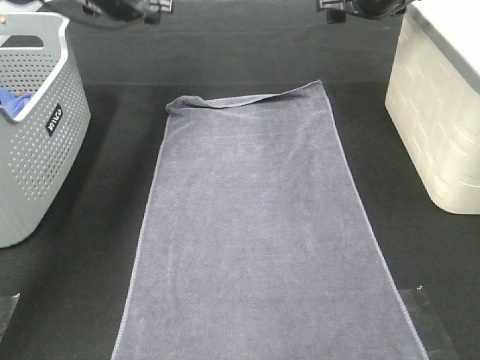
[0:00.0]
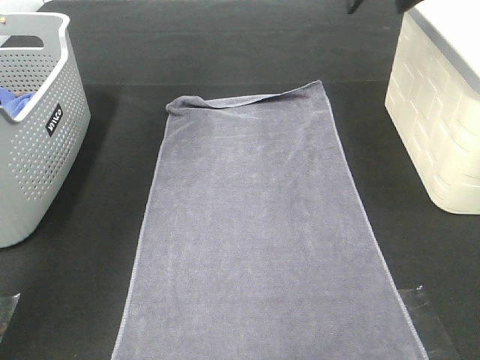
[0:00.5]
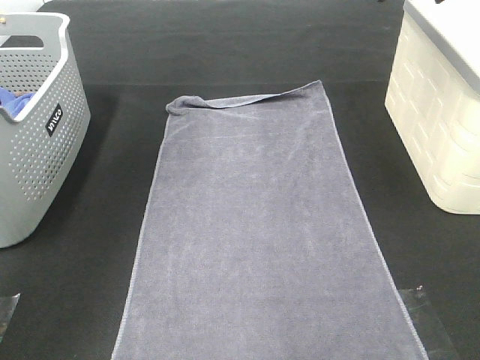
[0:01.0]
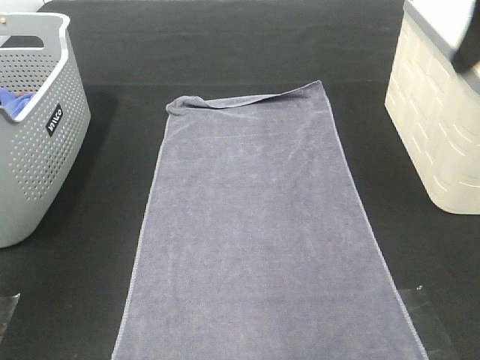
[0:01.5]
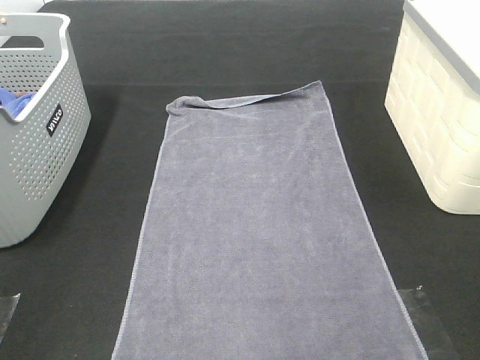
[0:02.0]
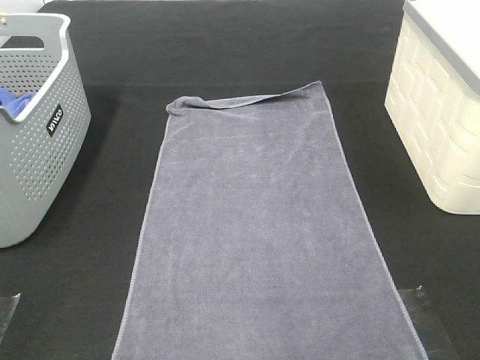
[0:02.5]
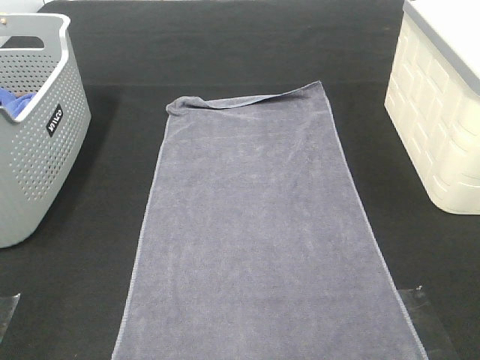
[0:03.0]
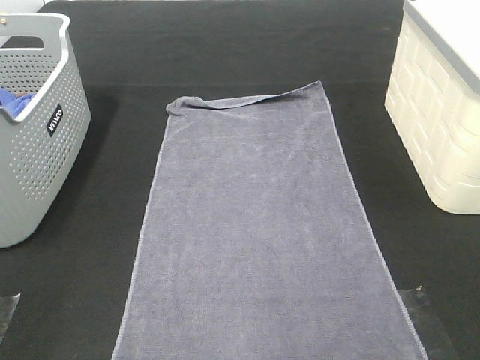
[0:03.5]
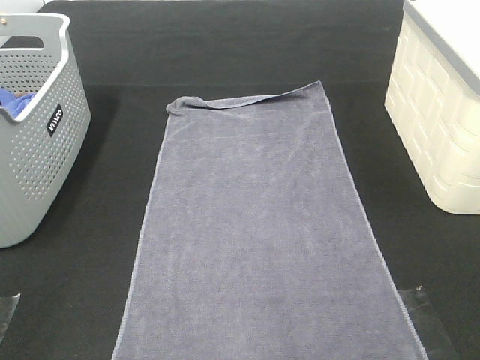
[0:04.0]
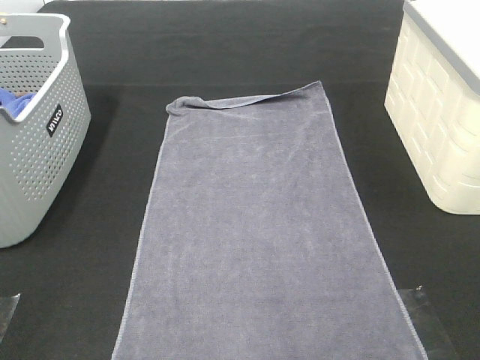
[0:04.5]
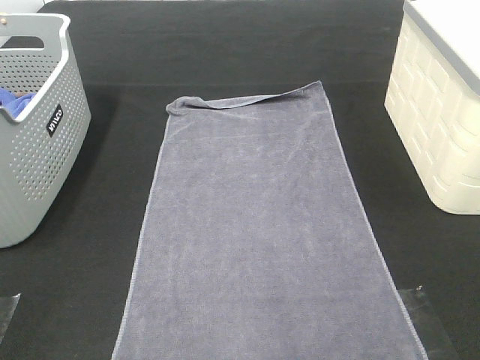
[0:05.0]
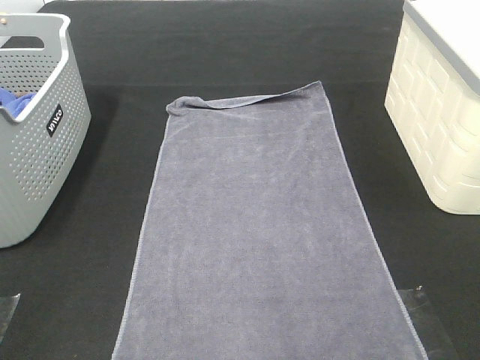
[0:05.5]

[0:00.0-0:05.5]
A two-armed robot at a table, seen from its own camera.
Task of the whole recording: Remove the towel and place it.
0:00.0 to 0:02.0: The grippers both shift backward by about 50 cm.

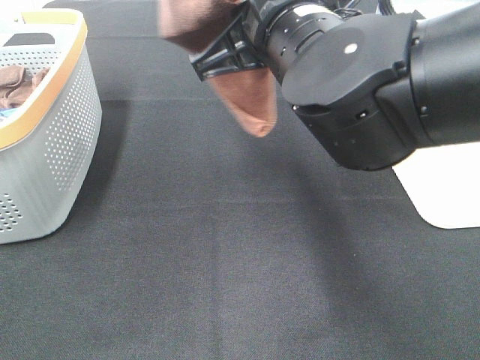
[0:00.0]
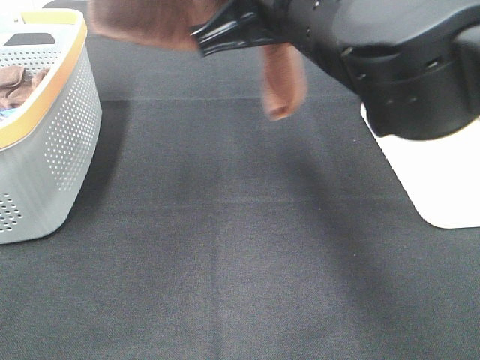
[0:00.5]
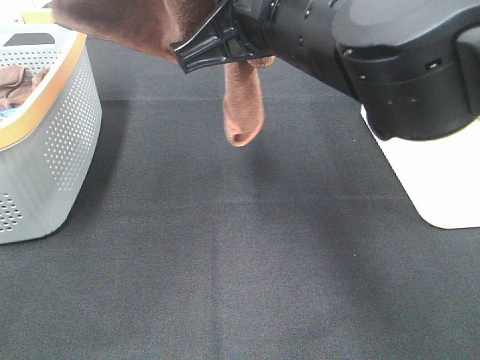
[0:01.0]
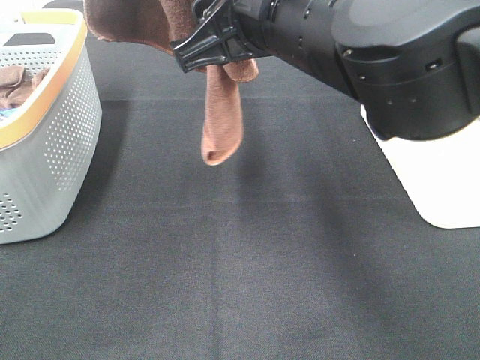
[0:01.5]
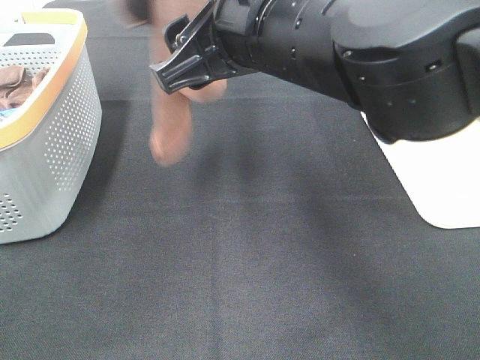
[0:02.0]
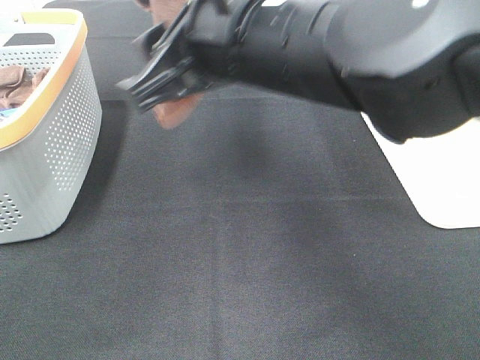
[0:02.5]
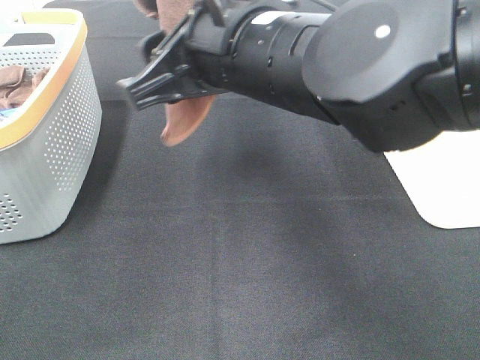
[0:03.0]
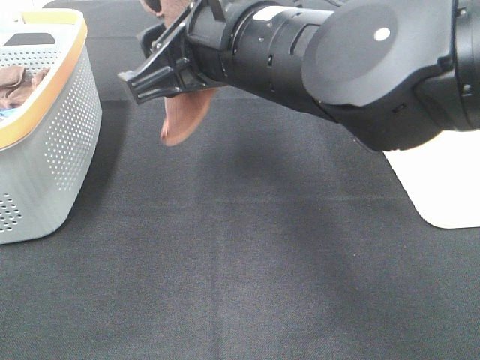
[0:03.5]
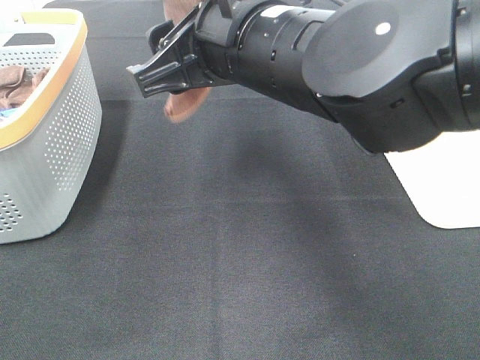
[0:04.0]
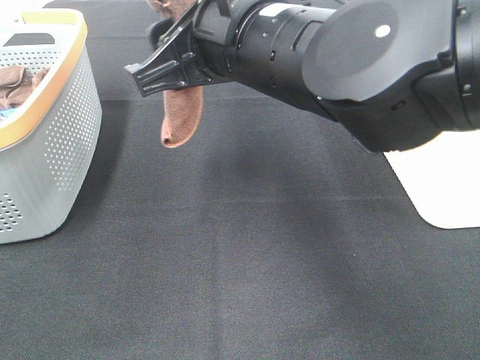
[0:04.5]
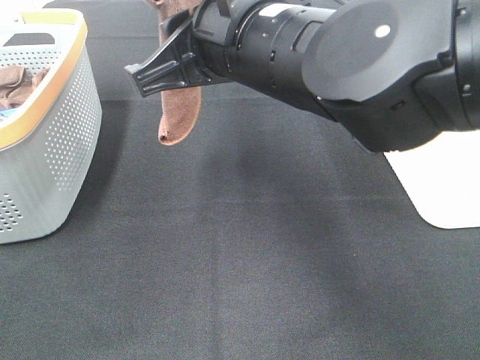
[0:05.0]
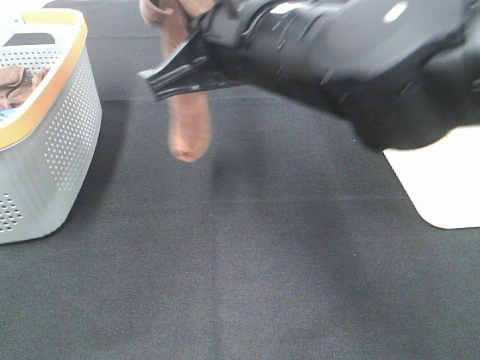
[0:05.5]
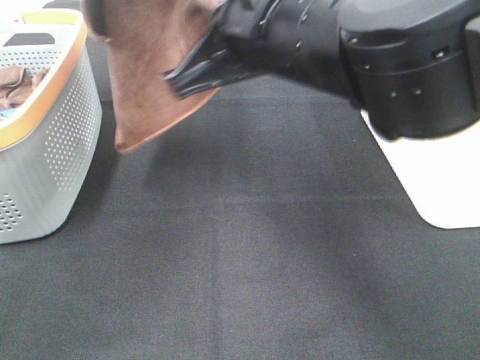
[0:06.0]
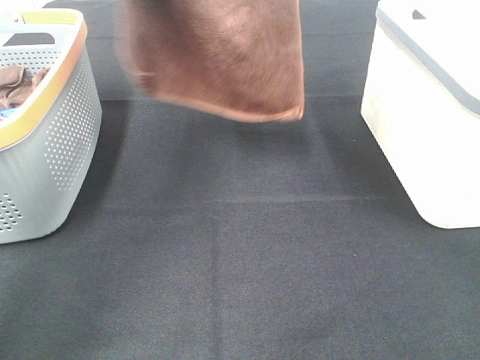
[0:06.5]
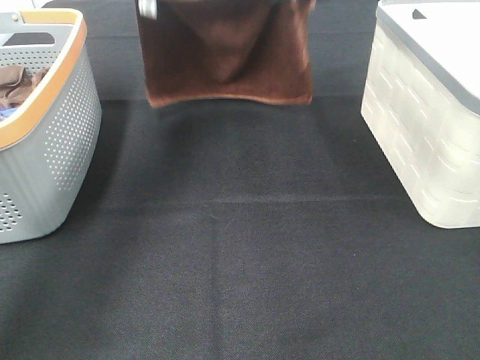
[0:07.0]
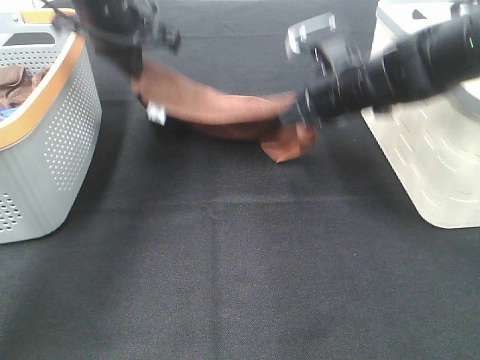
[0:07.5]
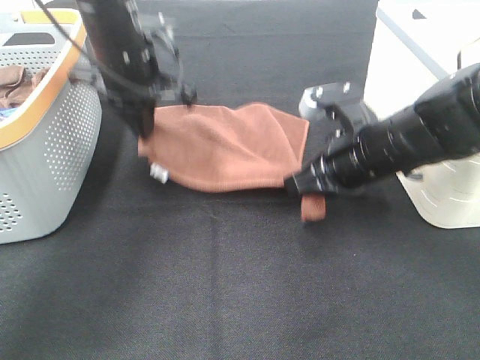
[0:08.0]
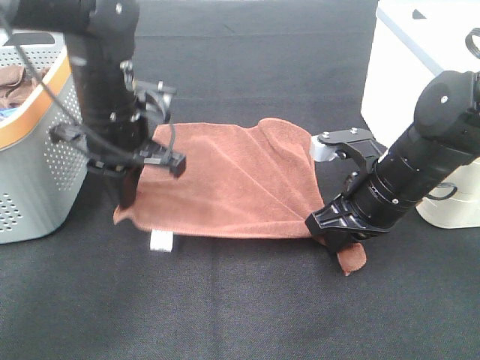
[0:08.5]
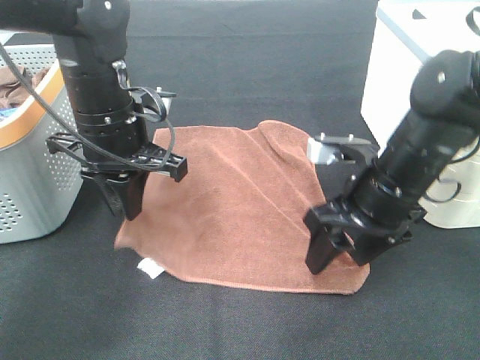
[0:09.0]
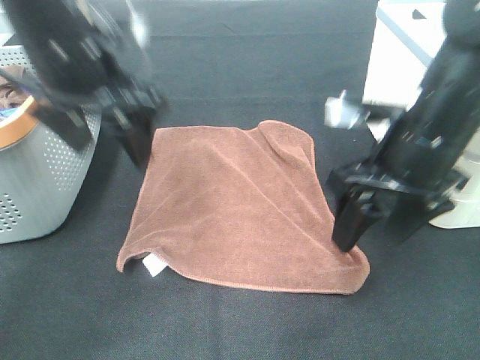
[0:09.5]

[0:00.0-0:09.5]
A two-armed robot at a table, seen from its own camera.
Task of the whole recording: Remove the towel and place it.
Step, 0:00.5 to 0:02.0: Left hand: spread the brown towel flat on the table.
Step, 0:00.5 to 0:02.0: Right hand: spread the brown towel flat on the table.
0:00.0 to 0:02.0: The right gripper opens up.
0:02.0 to 0:04.0: The grippers move only a little.
0:04.0 to 0:05.5: The right gripper closes its fingers.
0:05.5 to 0:07.5: The left gripper goes some 30 cm downward and forward, while the right gripper is displaced forward, downward and to the right by approximately 20 cm.
0:07.5 to 0:09.5: The left gripper is displaced backward by about 15 cm, and opens up, while the right gripper is displaced backward and upward by approximately 15 cm, and opens up.

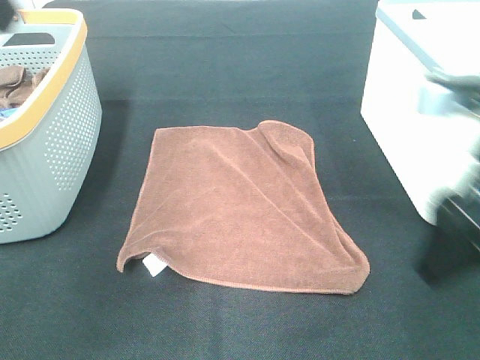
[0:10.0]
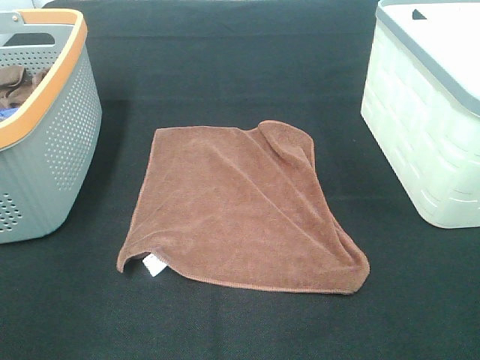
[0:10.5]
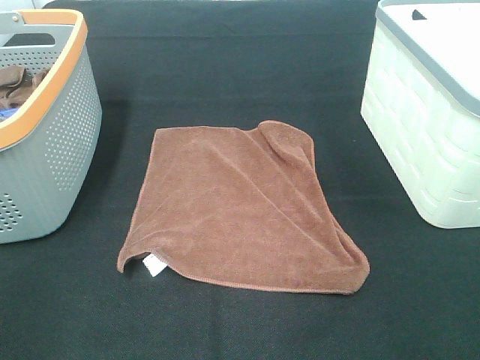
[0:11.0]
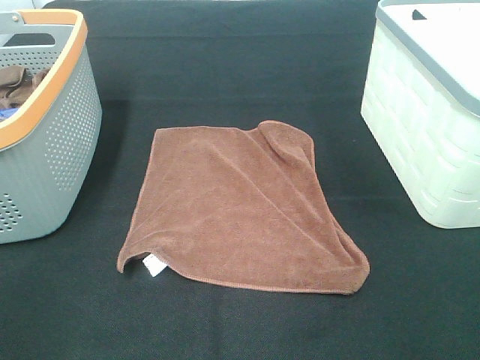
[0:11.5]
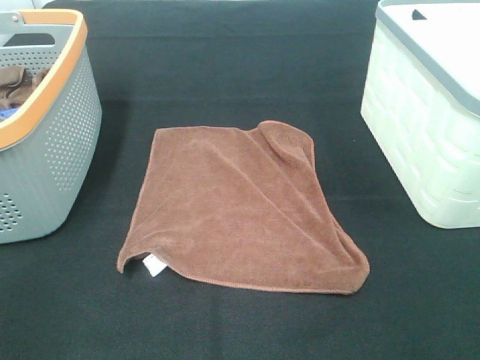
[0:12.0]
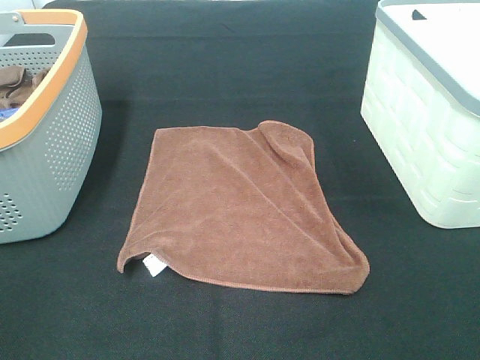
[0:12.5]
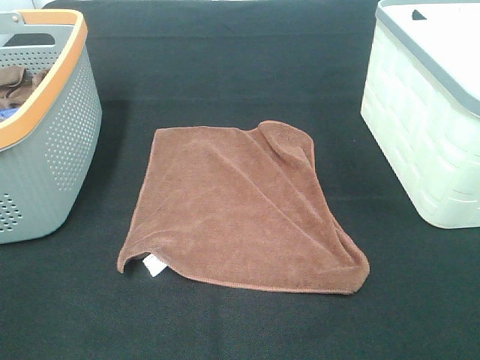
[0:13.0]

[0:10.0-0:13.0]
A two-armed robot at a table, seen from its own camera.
Task of the whole recording: Remove the towel and place it.
0:10.0 to 0:11.5: The right gripper goes roughly 15 cm backward and to the right. The left gripper travels backward, downward and to the left by roughly 25 cm.

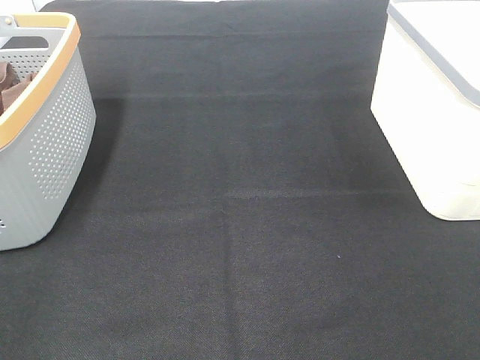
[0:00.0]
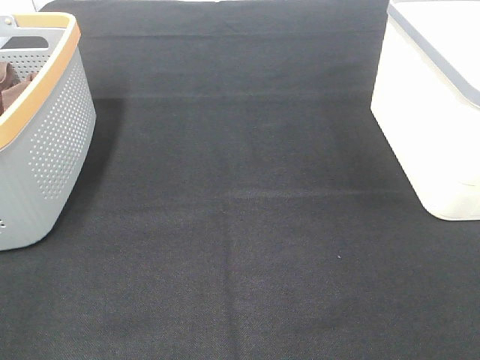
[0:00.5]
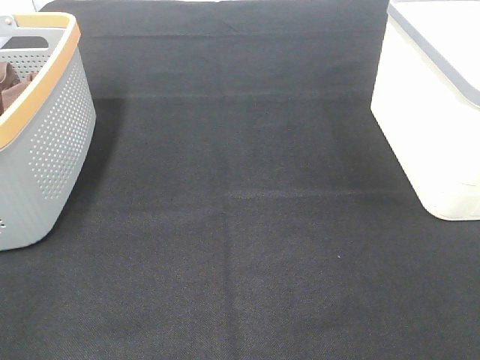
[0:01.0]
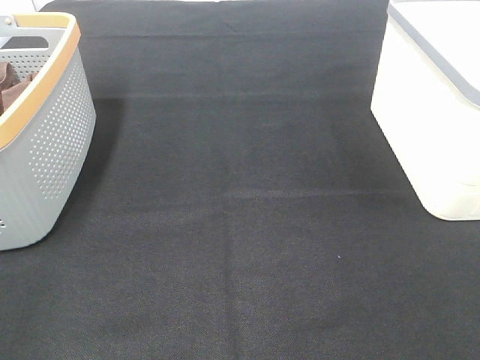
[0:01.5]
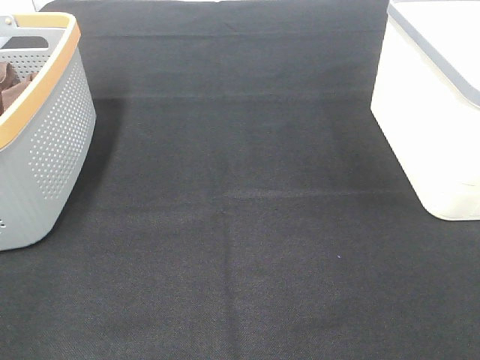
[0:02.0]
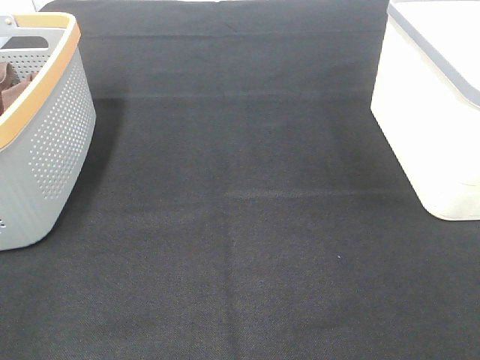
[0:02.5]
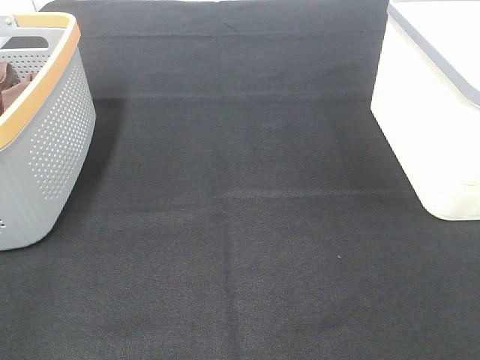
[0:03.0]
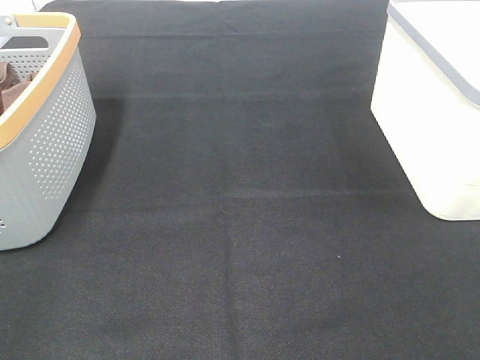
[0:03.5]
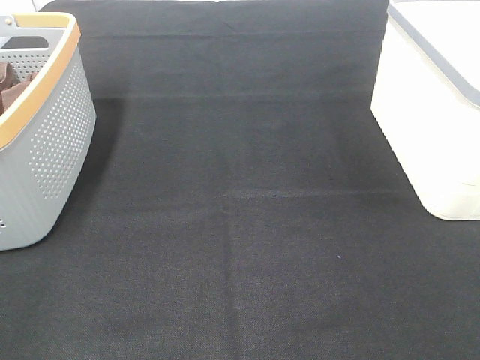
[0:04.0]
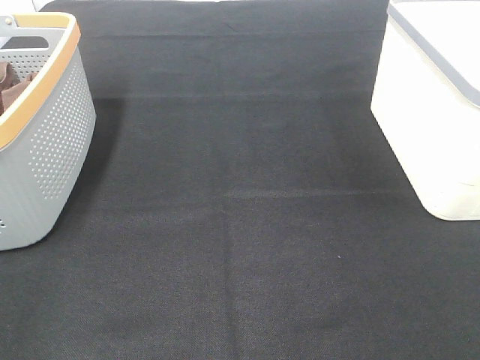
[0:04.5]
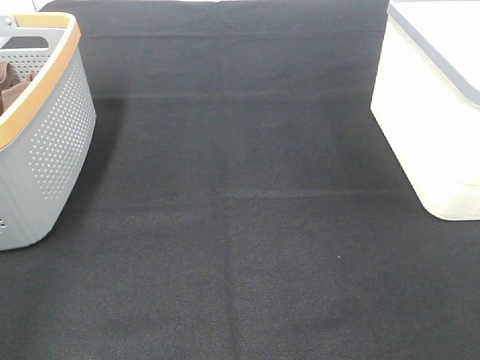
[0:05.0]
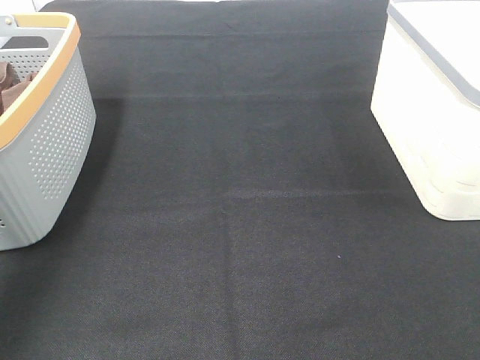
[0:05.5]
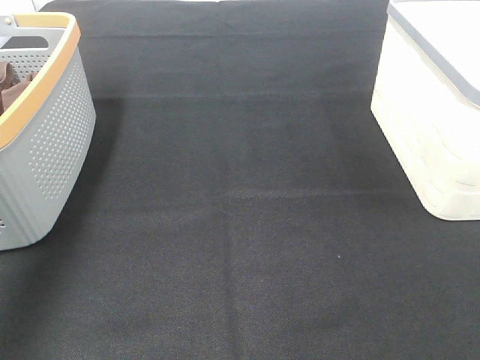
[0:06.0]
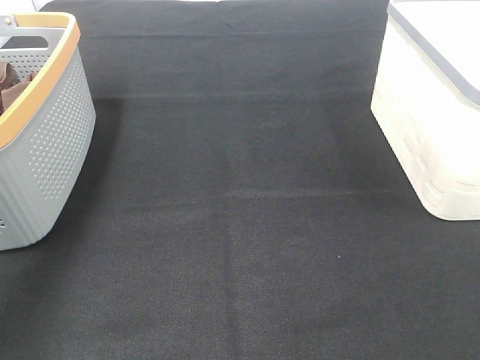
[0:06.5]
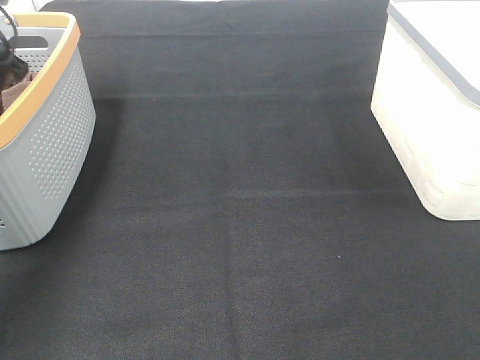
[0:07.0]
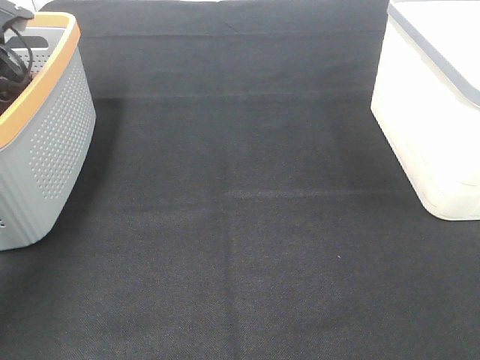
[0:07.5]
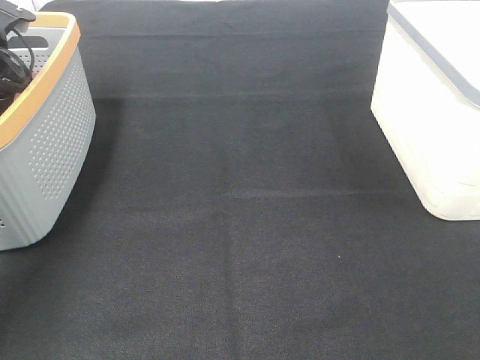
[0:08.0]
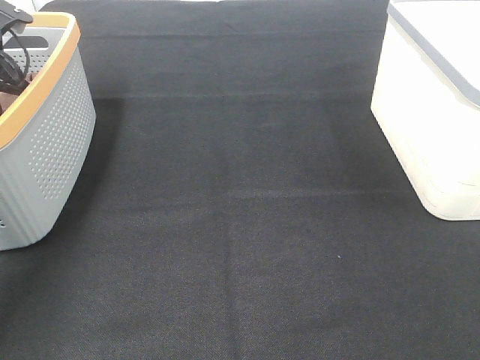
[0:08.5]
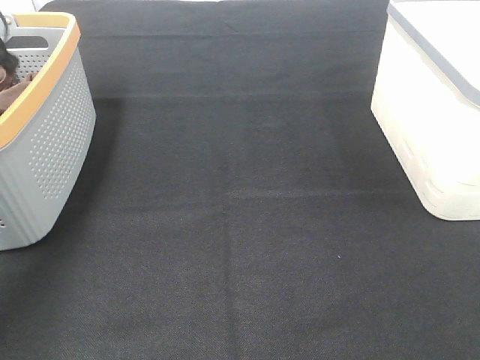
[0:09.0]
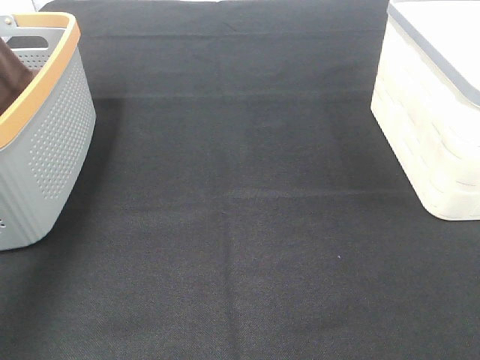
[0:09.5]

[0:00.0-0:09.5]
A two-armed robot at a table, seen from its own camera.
Task of the whole recording: Remove the towel and place it.
0:00.0 to 0:04.0: Both grippers stay put.
0:04.0 to 0:05.5: The left gripper goes some 25 cm forward and upward.
0:05.5 to 0:07.5: The left gripper moves forward and downward, approximately 30 cm.
0:07.5 to 0:09.5: The left gripper shifts approximately 20 cm upward and backward, and closes its fingers.
